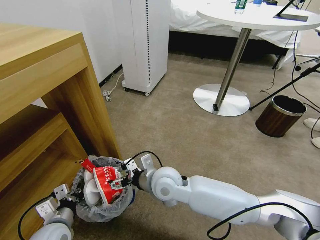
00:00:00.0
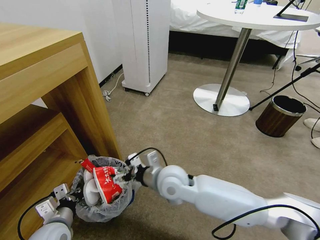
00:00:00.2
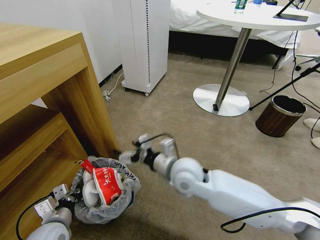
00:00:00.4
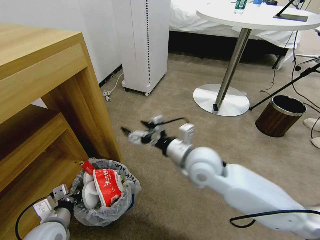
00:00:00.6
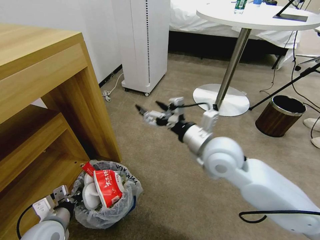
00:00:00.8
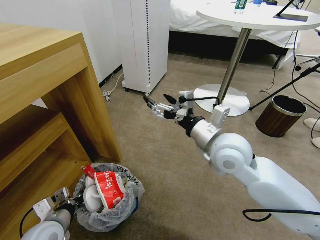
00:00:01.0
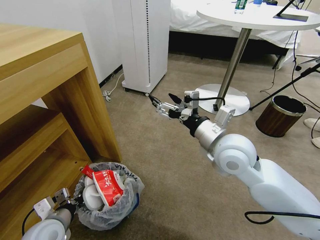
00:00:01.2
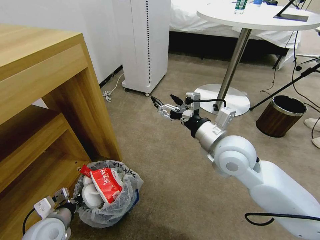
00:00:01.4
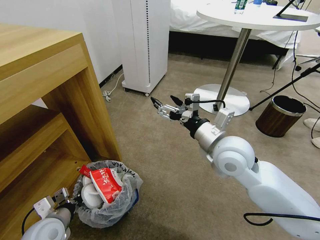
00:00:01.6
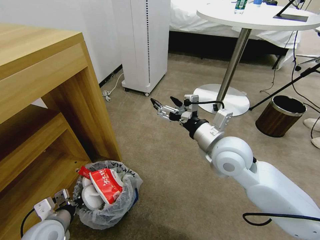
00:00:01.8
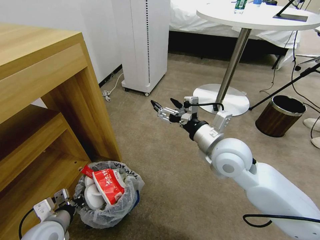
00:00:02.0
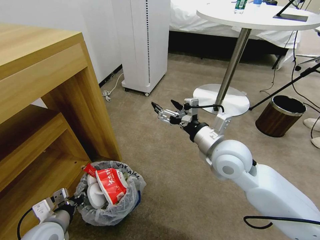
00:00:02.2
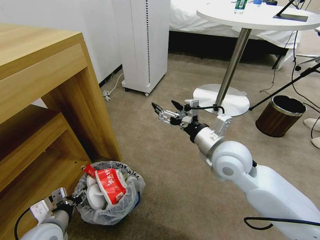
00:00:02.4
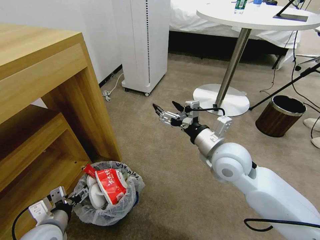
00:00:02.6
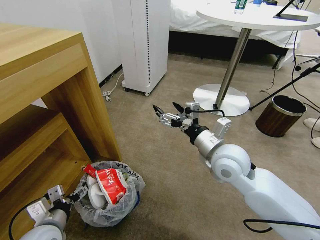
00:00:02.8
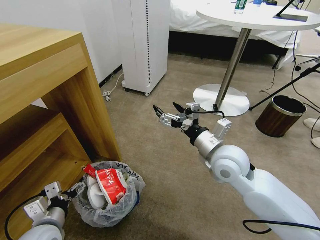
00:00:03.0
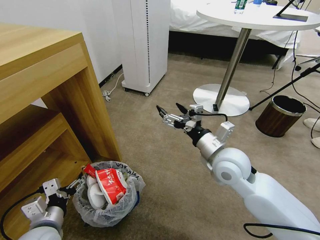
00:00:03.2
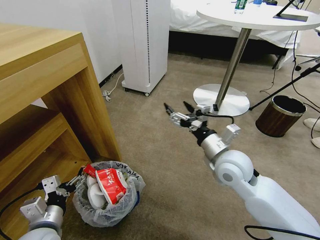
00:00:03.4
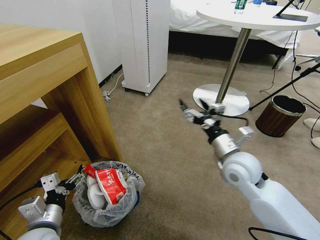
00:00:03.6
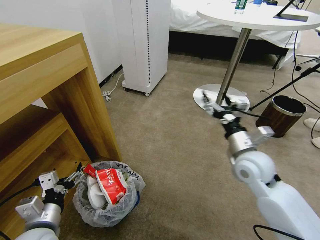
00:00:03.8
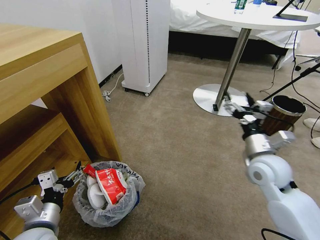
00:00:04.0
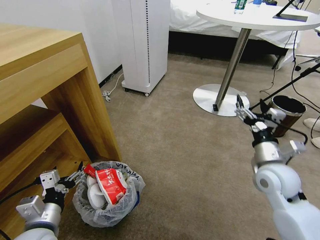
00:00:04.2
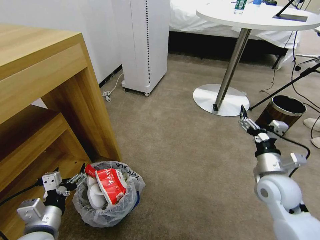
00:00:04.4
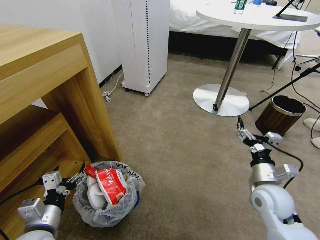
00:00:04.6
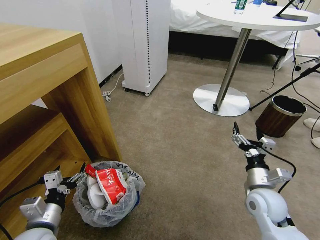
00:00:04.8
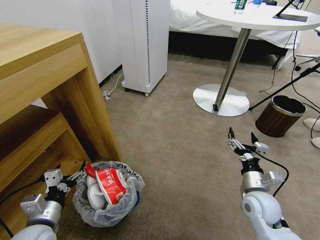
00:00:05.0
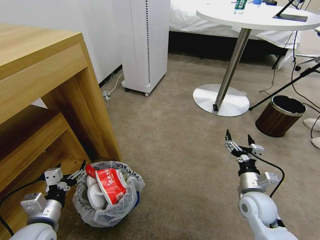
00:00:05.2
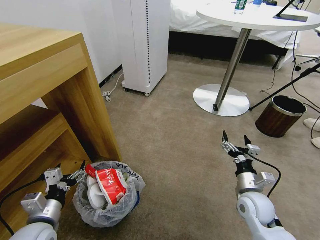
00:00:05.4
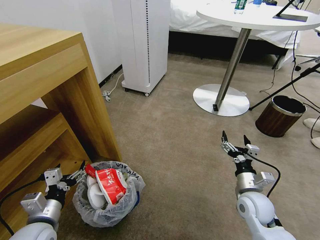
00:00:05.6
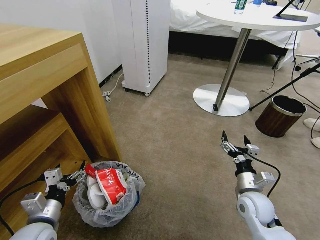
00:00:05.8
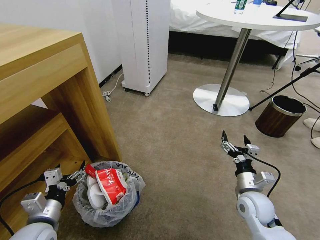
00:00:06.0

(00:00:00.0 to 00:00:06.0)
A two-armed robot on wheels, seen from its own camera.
Task of the whole recording: Pick up the trash bin and place the garbage on the floor into it.
00:00:00.0 - 00:00:01.6: The right gripper heads to the right and upward, covering approximately 20 cm.
00:00:01.6 - 00:00:03.0: The left gripper opens its fingers.
00:00:03.0 - 00:00:04.4: The right gripper is displaced to the right and downward by about 15 cm.
00:00:04.4 - 00:00:06.0: The right gripper moves downward, some 10 cm.
